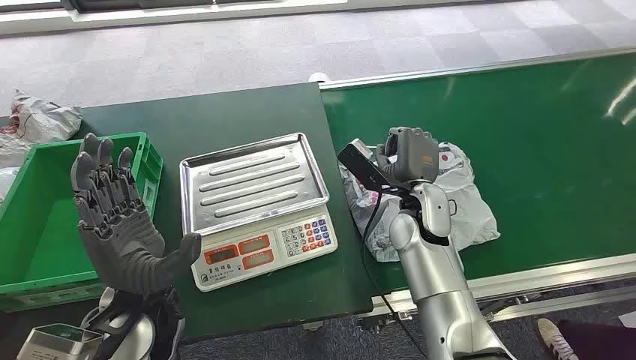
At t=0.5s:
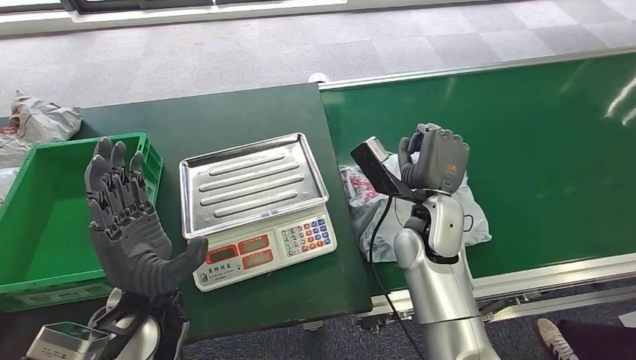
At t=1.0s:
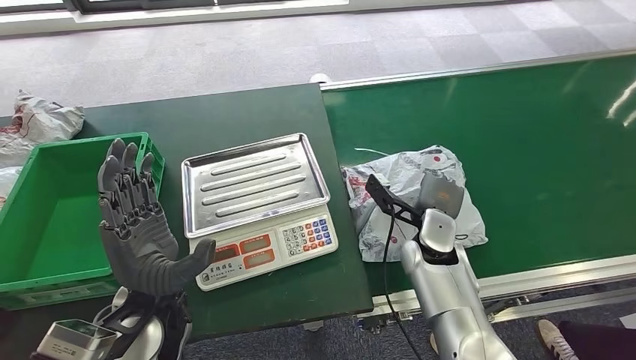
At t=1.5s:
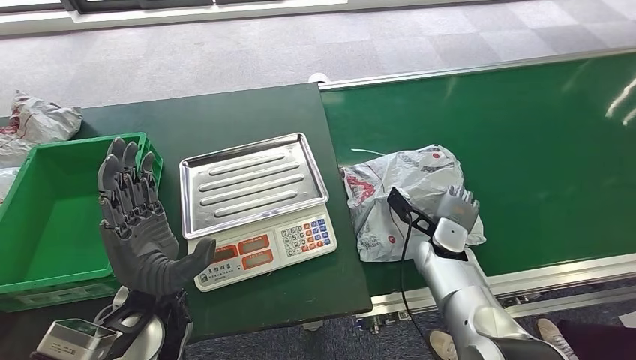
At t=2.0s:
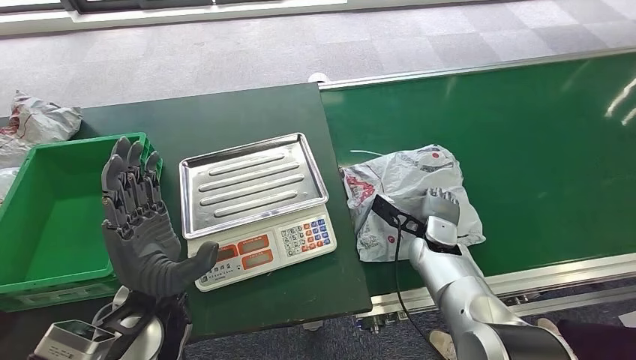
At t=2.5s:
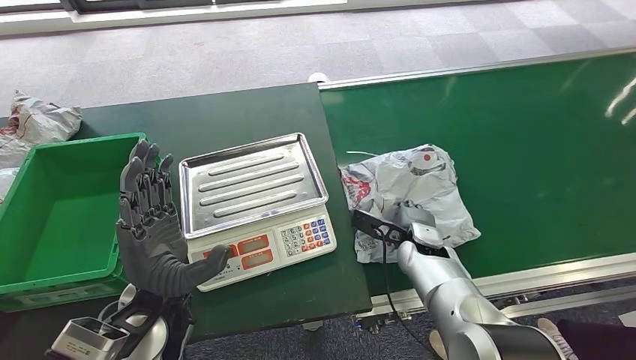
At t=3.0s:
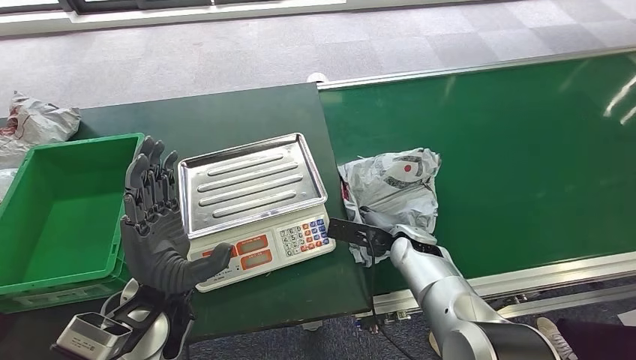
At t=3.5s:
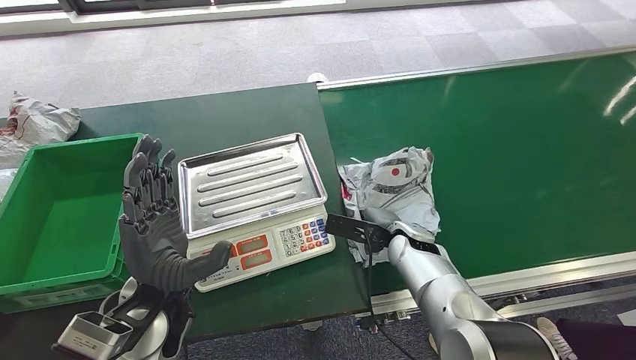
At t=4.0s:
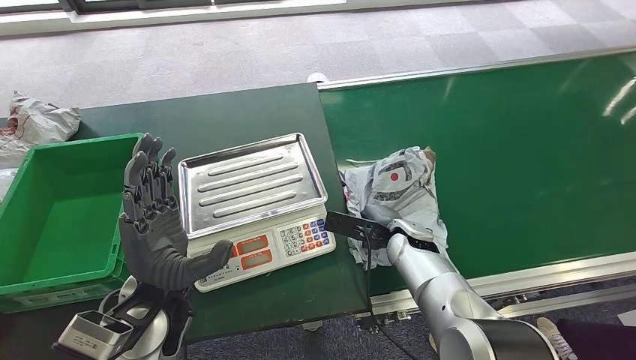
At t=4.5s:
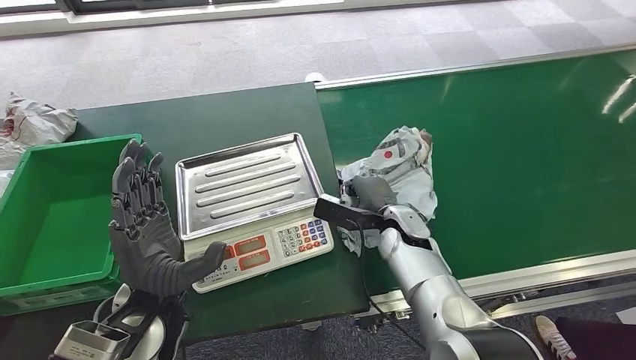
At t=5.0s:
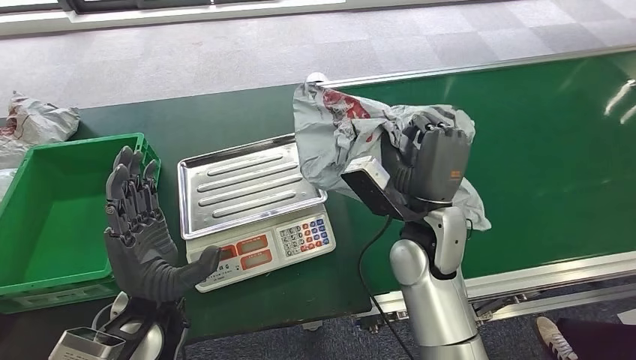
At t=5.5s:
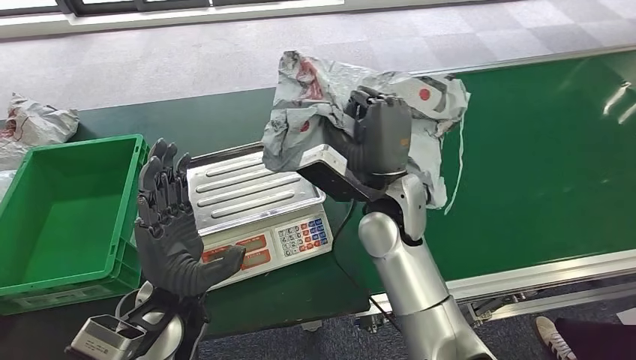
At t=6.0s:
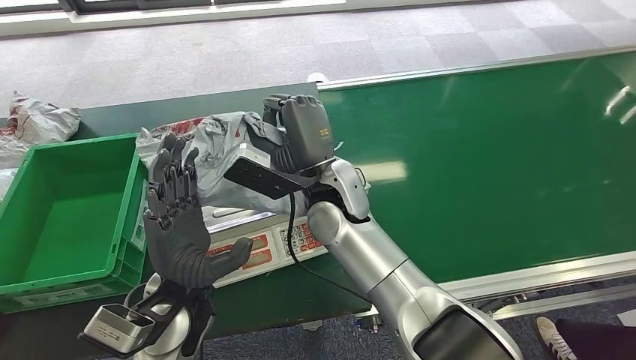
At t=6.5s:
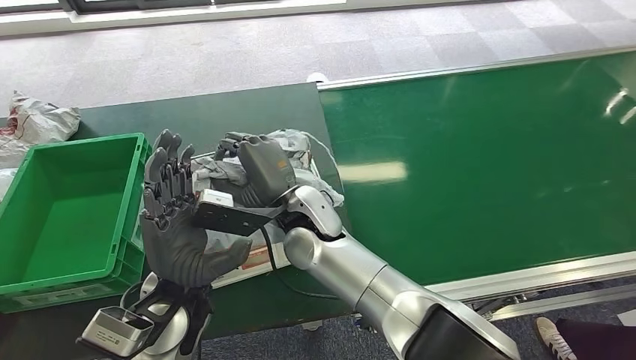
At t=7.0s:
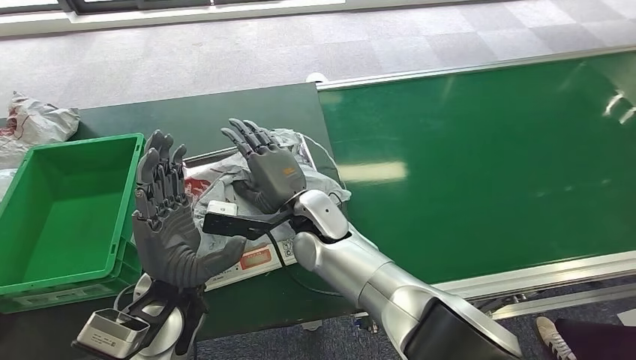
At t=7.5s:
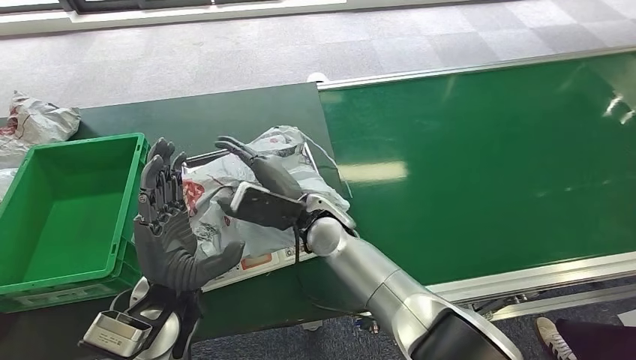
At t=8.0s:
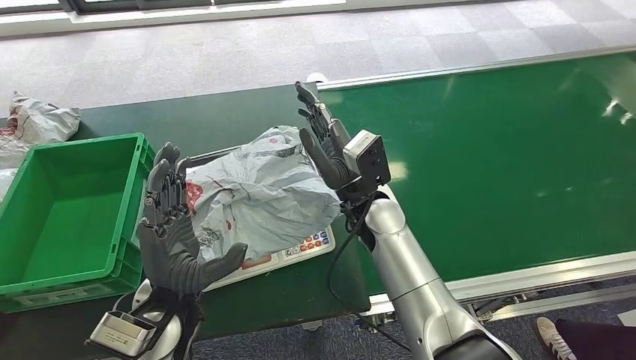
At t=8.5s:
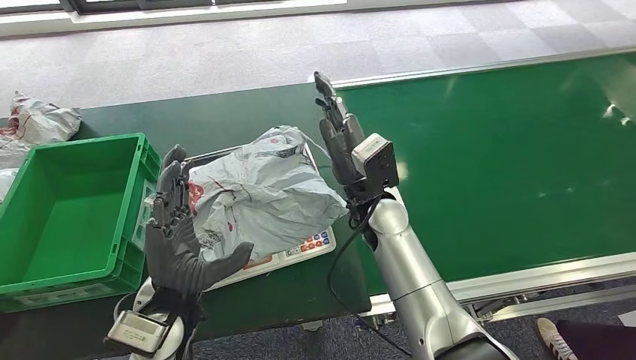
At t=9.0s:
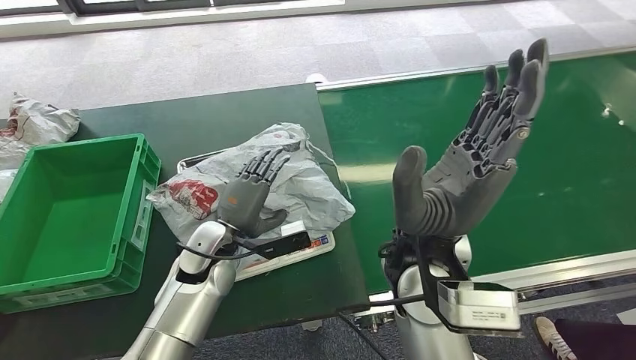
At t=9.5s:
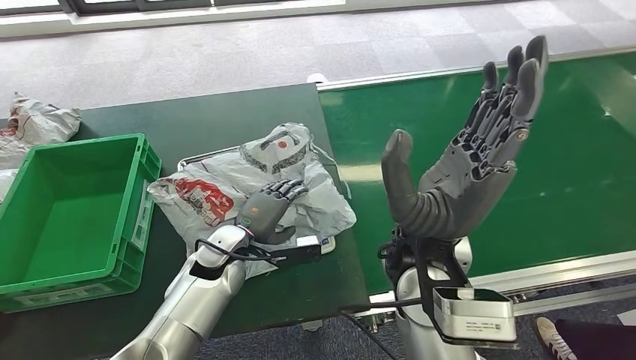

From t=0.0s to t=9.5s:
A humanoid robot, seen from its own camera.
Step, from t=0.0s to t=5.0s: Pick up the package from the conveyor belt.
Step, from t=5.5s to t=8.5s: Place the package onto the inbound machine.
From t=2.0s to t=4.0s: The right hand travels to the left by some 5 cm.

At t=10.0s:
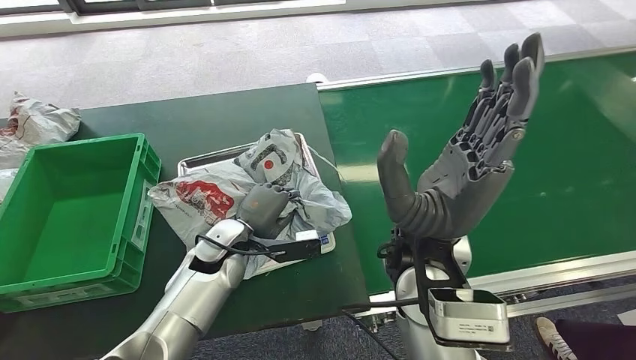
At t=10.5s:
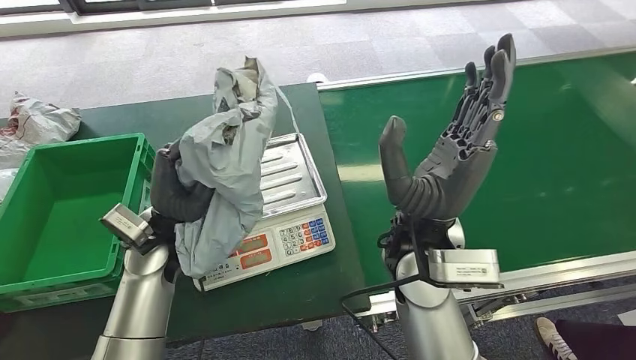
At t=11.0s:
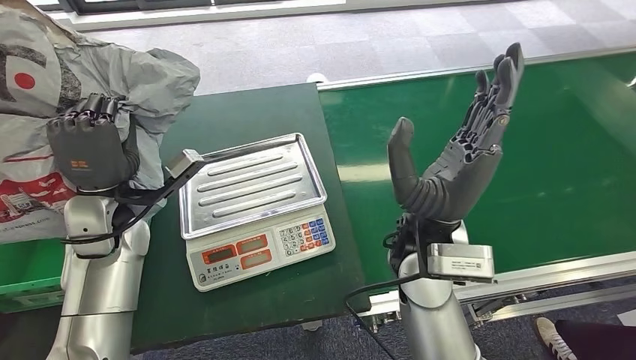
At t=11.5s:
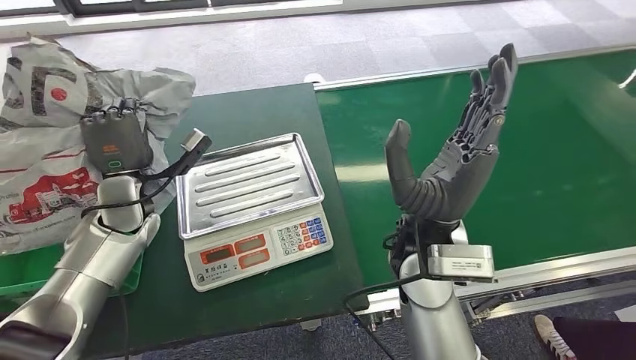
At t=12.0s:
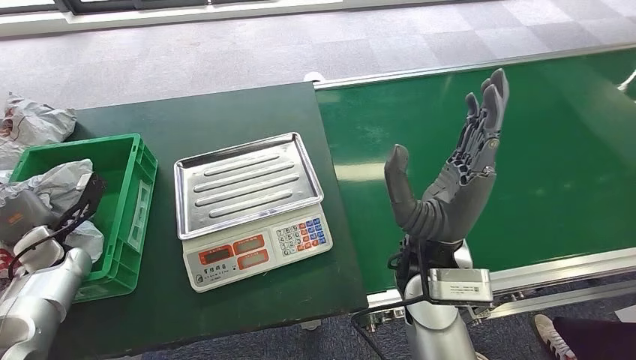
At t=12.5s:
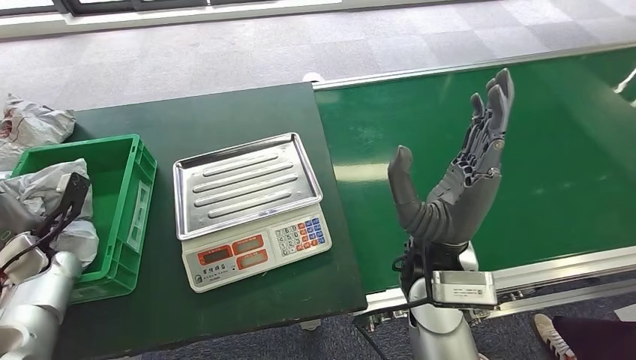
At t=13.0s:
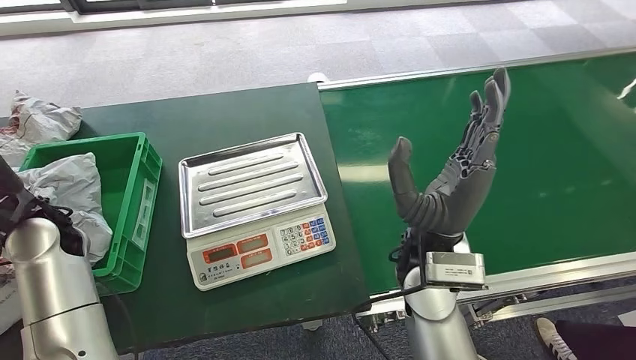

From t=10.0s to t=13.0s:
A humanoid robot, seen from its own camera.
Step, from t=11.5s to t=13.0s: Place the package into the parcel locker.

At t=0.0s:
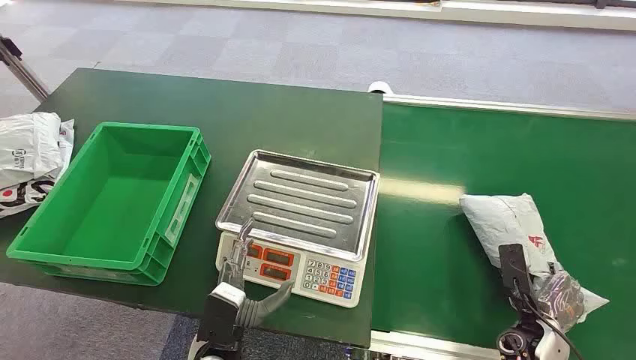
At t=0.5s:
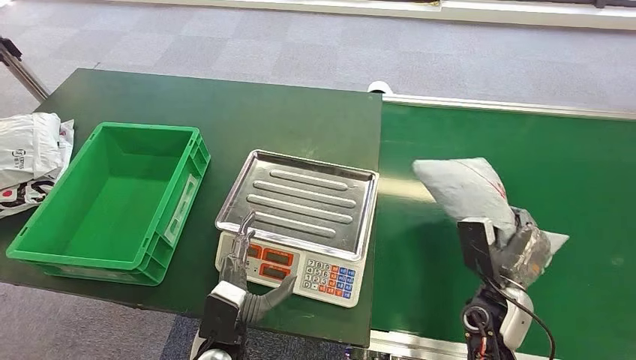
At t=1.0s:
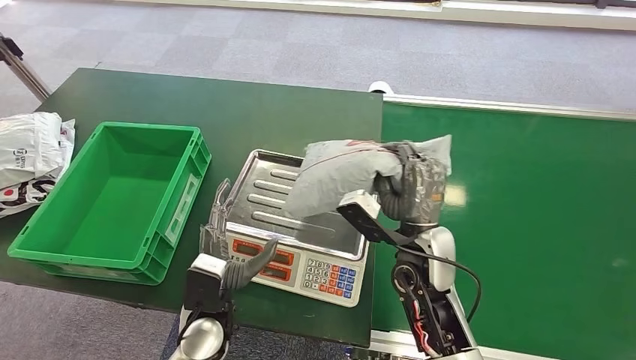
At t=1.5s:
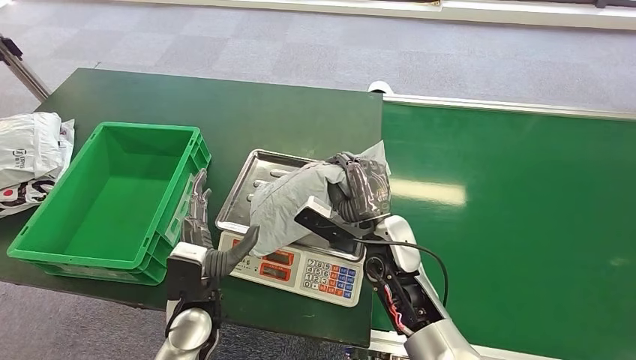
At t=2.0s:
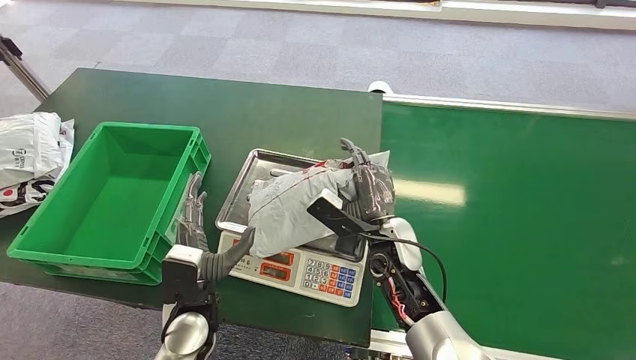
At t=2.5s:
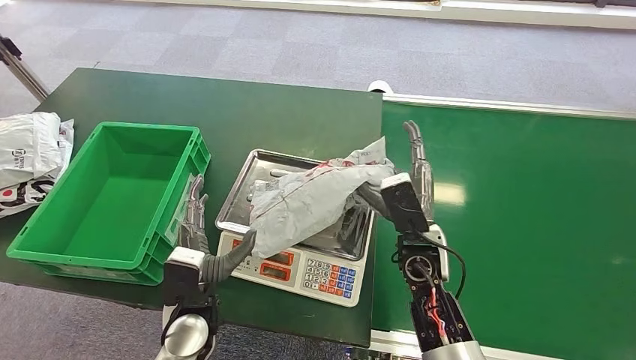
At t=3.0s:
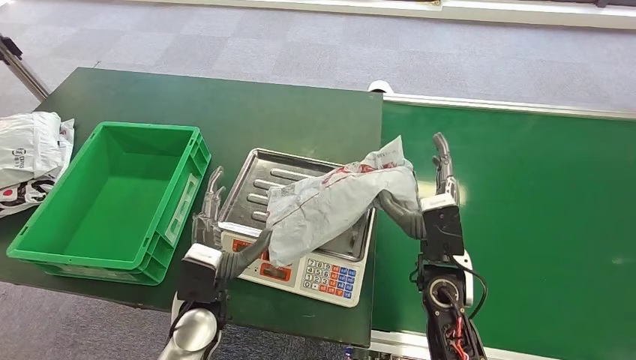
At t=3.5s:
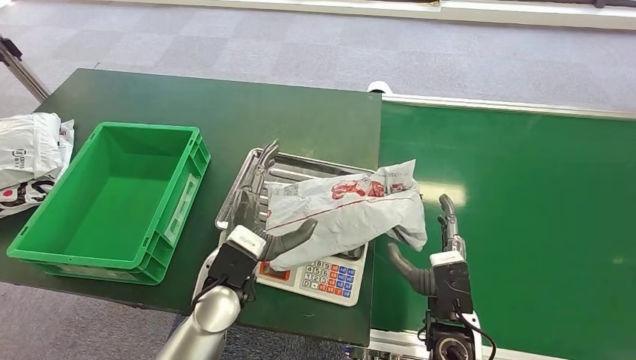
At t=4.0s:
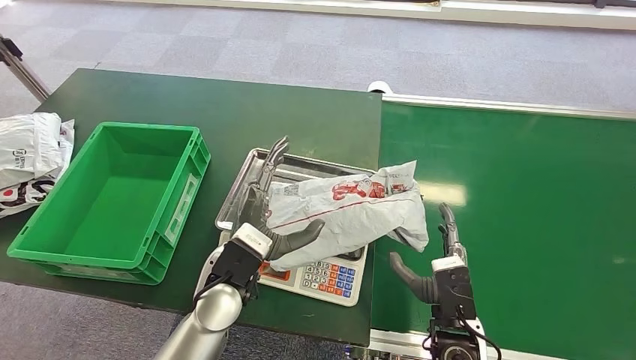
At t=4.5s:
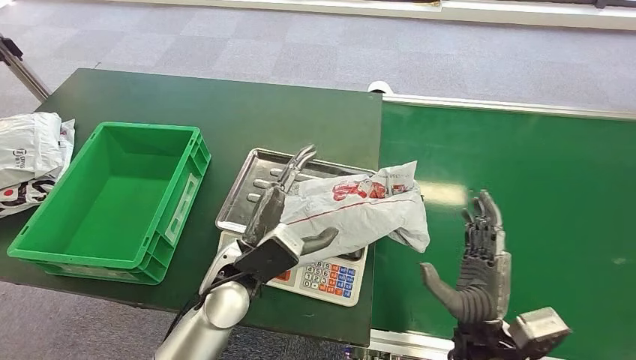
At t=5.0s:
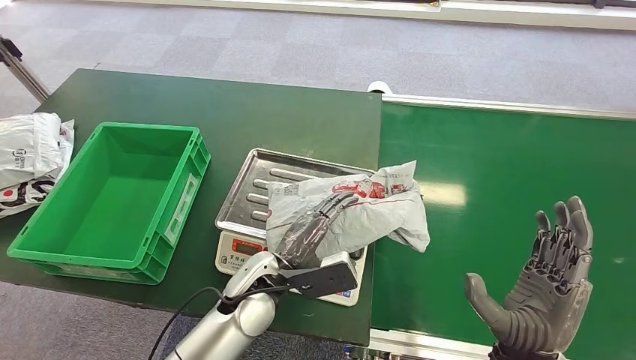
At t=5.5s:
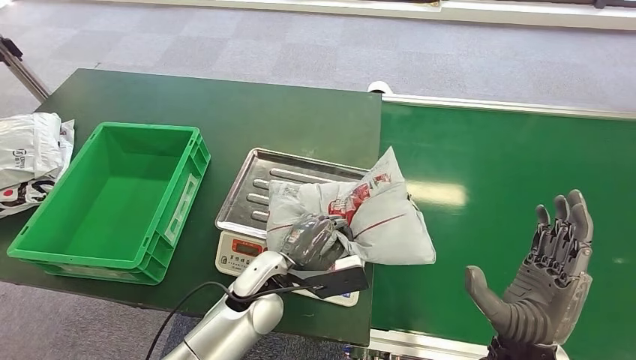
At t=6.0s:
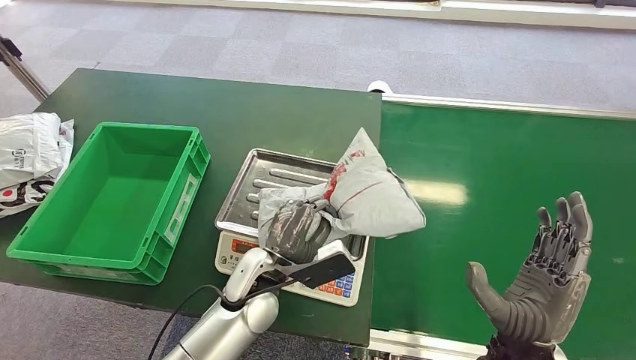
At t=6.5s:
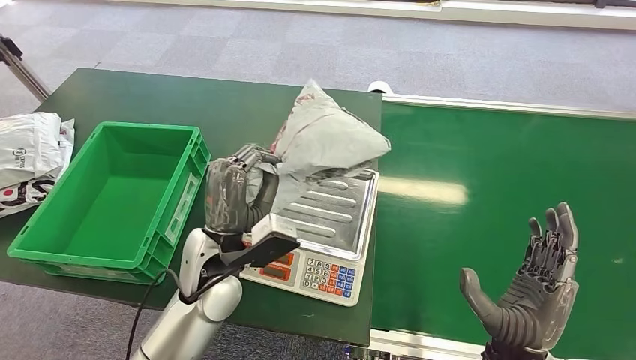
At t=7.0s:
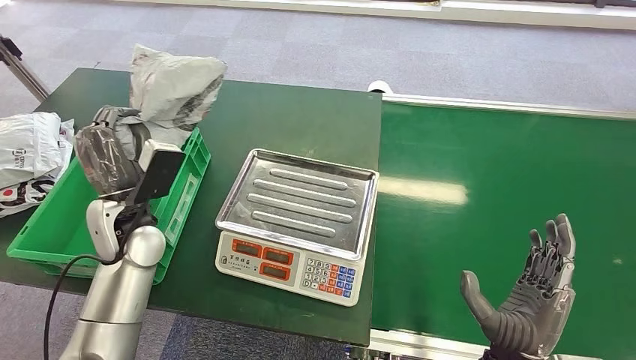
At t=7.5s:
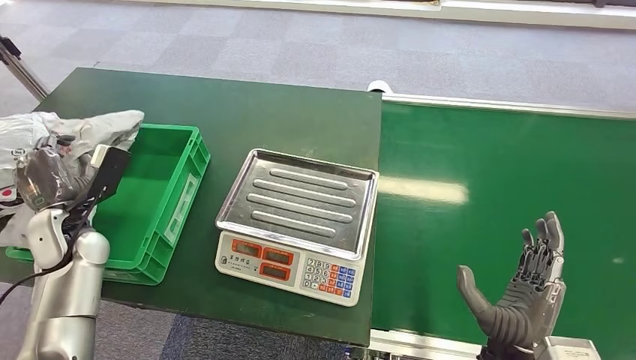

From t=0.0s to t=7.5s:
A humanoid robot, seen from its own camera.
Step, from t=0.0s to t=0.5s: Pick up the package from the conveyor belt.
Step, from t=1.5s to t=2.5s: Place the package onto the inbound machine.
Step, from t=7.0s to t=7.5s: Place the package into the parcel locker.
From t=2.0s to t=4.0s: The left hand heads upward and to the right, covering some 10 cm. Meanwhile the right hand shifts about 15 cm backward and to the right.
From t=4.0s to t=5.5s: The right hand heads upward, covering approximately 10 cm, while the left hand is displaced downward by some 5 cm.
